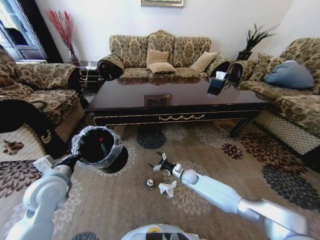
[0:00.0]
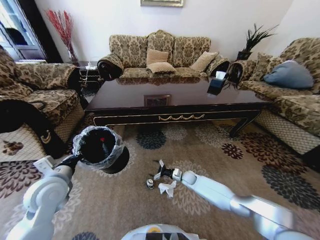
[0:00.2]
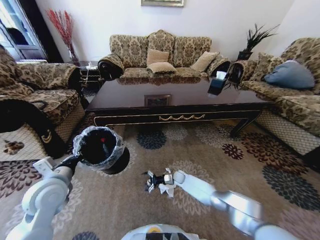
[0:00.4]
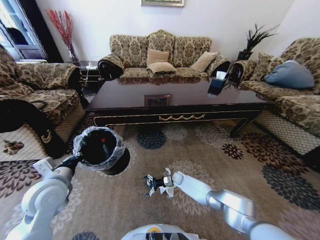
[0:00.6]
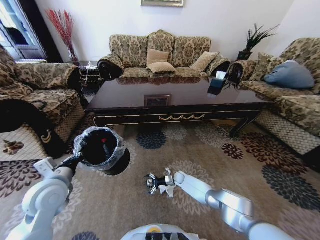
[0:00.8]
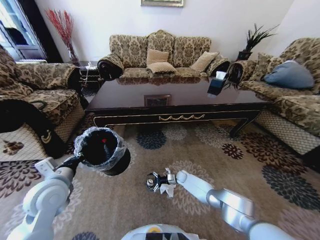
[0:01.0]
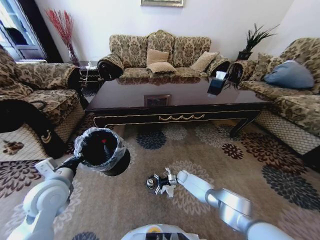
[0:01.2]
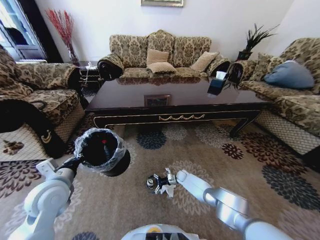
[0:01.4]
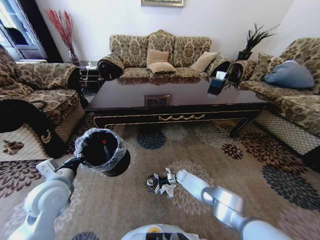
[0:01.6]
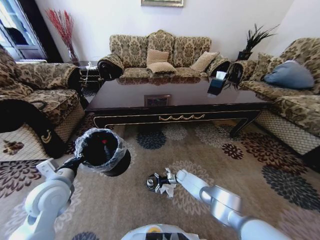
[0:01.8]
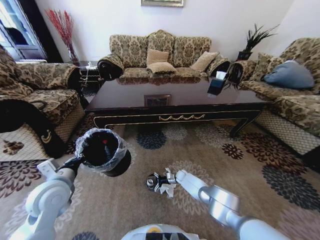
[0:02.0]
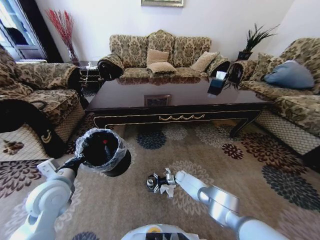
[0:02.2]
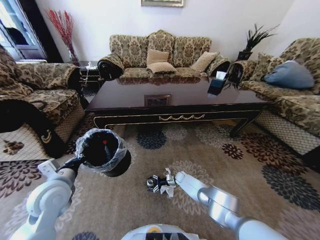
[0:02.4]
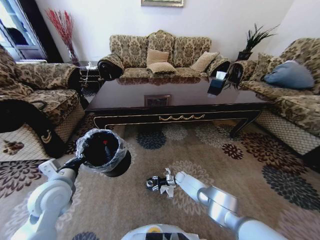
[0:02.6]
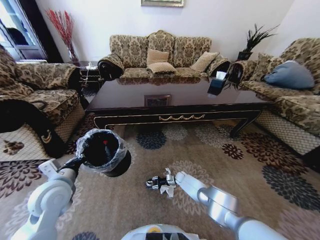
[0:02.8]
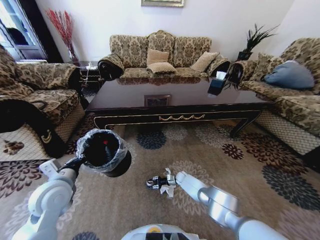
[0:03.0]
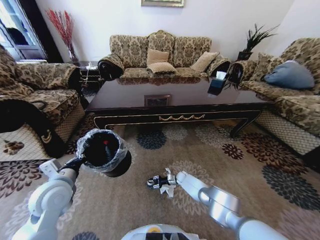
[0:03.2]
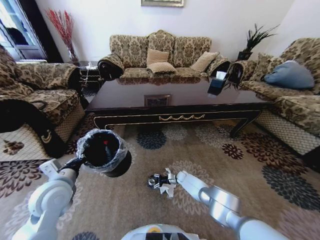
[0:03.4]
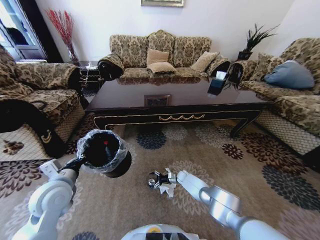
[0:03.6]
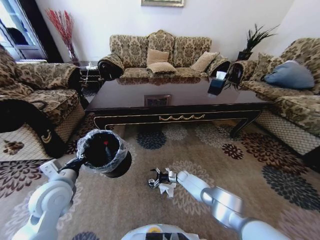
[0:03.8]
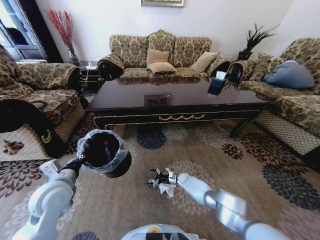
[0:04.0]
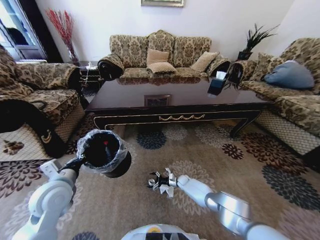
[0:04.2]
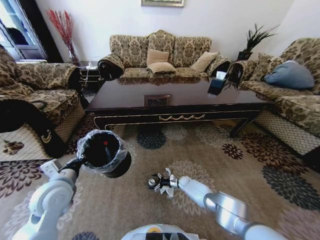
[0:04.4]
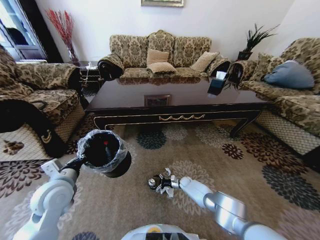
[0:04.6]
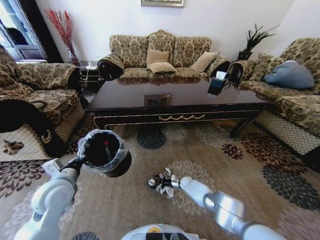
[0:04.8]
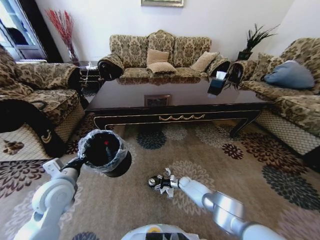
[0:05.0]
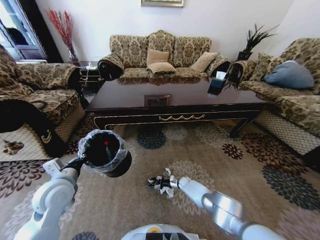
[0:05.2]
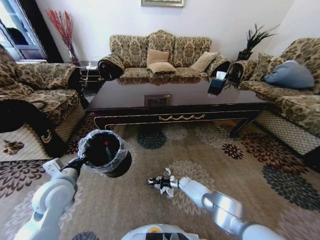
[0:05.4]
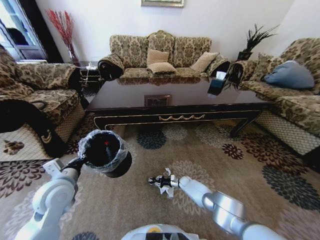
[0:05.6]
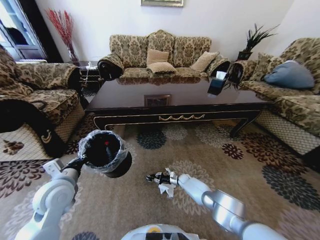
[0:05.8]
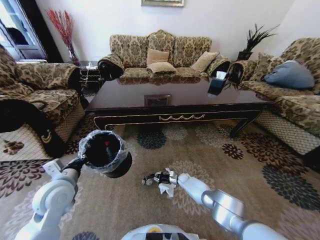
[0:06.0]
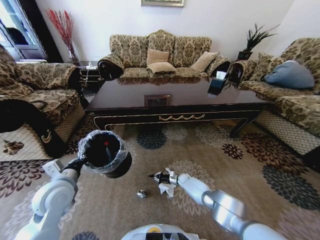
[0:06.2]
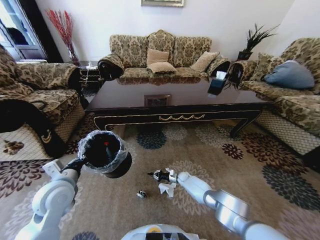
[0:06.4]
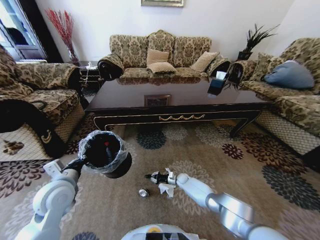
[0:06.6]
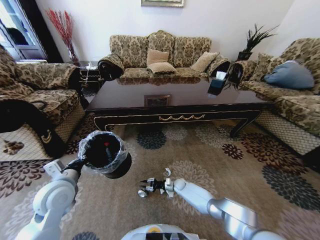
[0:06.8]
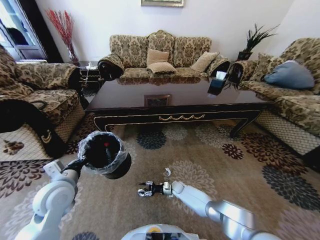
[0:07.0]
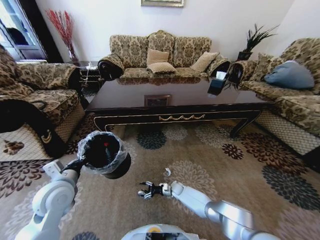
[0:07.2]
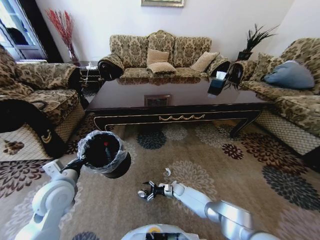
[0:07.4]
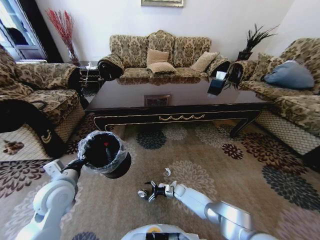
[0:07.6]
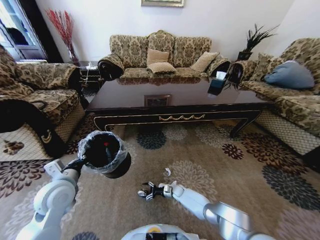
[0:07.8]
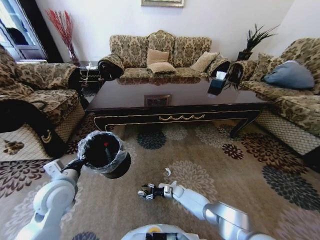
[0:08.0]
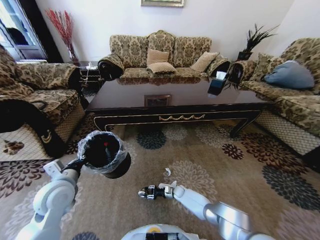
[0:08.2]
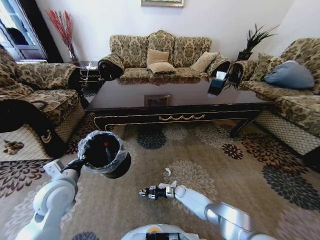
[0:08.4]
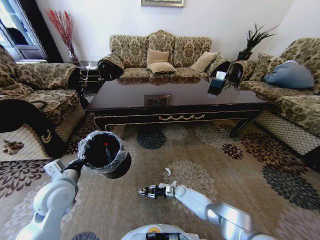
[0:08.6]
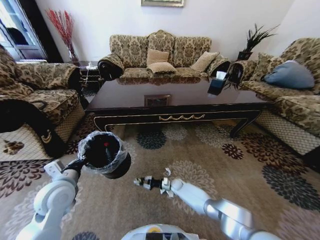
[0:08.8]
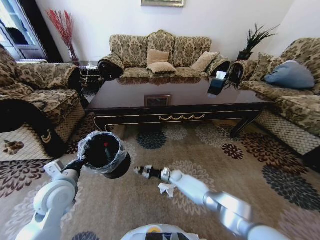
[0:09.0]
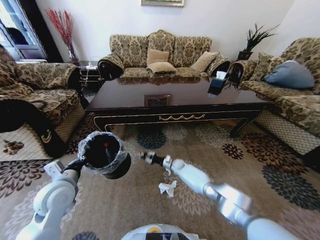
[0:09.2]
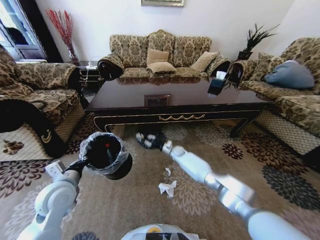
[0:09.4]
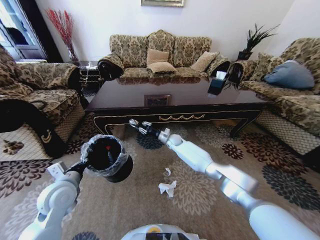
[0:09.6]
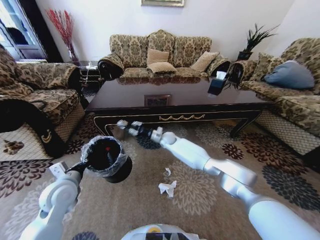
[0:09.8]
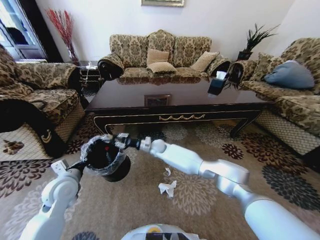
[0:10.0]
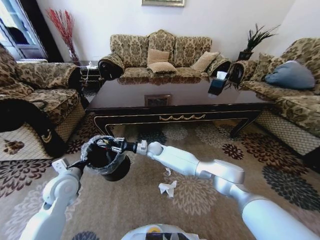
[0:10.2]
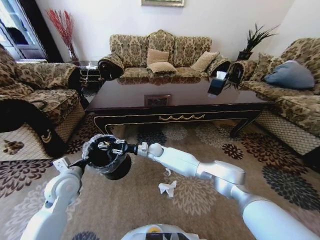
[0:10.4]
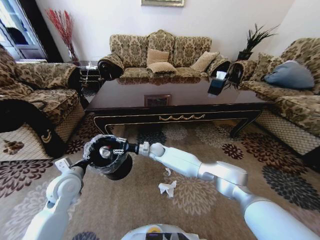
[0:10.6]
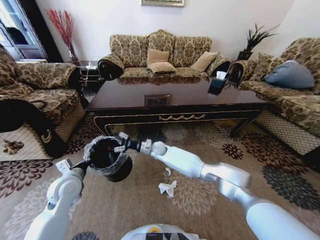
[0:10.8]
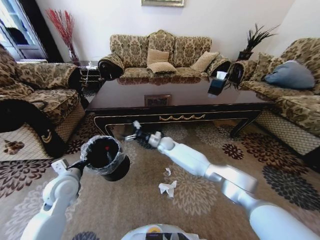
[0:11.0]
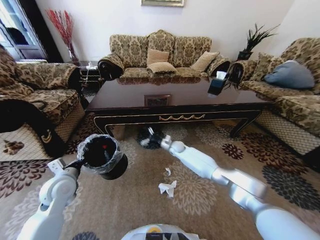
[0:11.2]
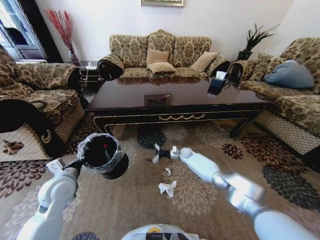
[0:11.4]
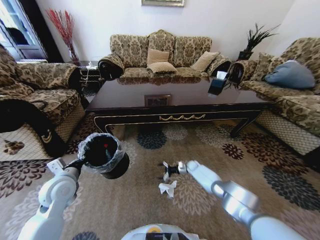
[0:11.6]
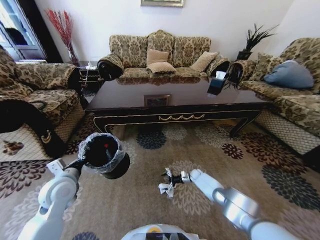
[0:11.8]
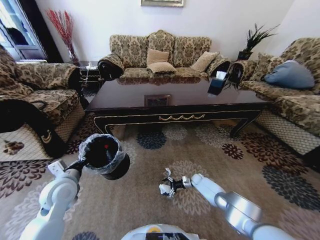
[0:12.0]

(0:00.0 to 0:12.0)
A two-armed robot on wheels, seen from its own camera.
Task of the whole recording: Move to the front of the table and pick up the trash from the floor, then place it into the trash bin.
0:00.0 - 0:01.6: The right gripper heads downward and forward, covering approximately 15 cm.
0:01.6 - 0:03.0: The right gripper closes its fingers.
0:03.0 - 0:04.4: The right gripper opens.
0:04.4 - 0:06.0: The right gripper closes its fingers.
0:06.0 - 0:07.6: The right gripper is displaced backward by roughly 5 cm, and opens its fingers.
0:07.6 - 0:09.0: The right gripper travels upward and forward by roughly 10 cm, and closes.
0:09.0 - 0:10.4: The right gripper moves upward and to the left, approximately 25 cm.
0:10.4 - 0:12.0: The right gripper is displaced to the right and downward by roughly 40 cm, and opens.

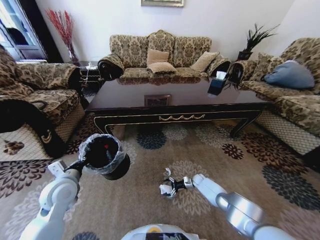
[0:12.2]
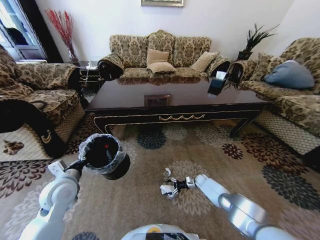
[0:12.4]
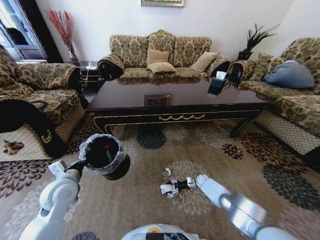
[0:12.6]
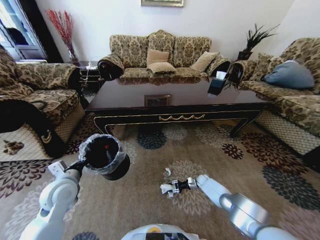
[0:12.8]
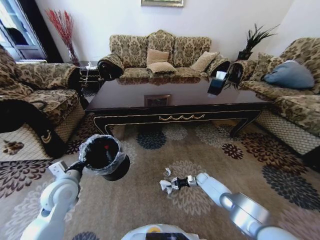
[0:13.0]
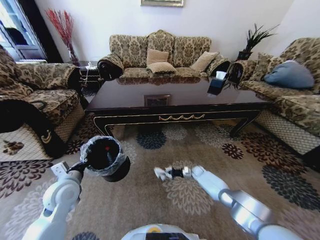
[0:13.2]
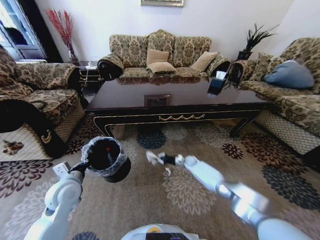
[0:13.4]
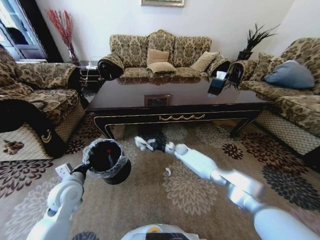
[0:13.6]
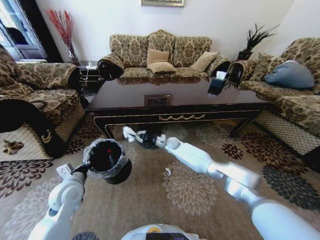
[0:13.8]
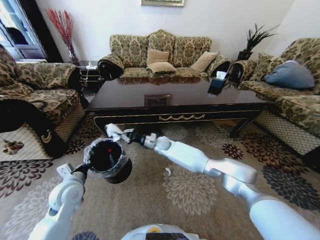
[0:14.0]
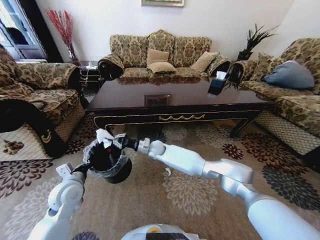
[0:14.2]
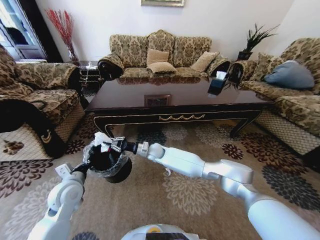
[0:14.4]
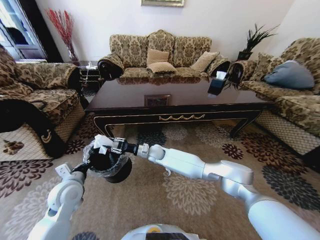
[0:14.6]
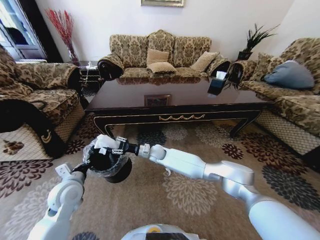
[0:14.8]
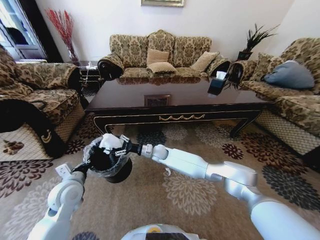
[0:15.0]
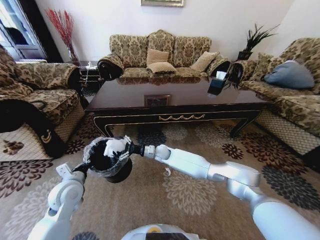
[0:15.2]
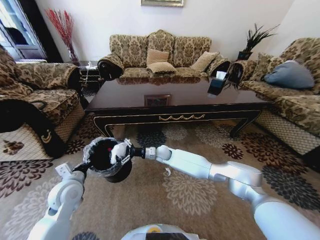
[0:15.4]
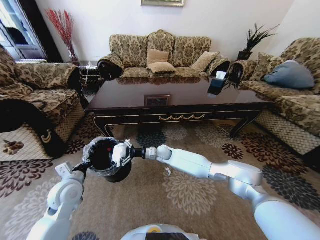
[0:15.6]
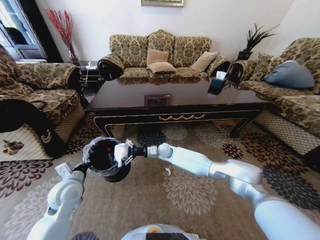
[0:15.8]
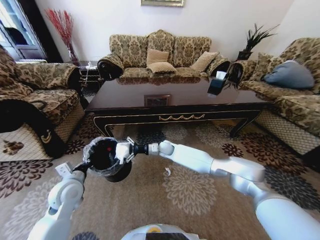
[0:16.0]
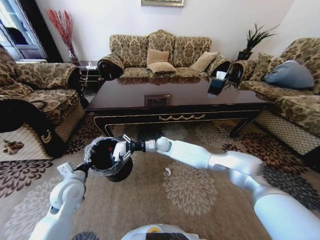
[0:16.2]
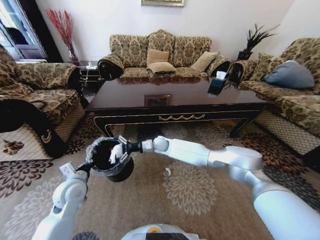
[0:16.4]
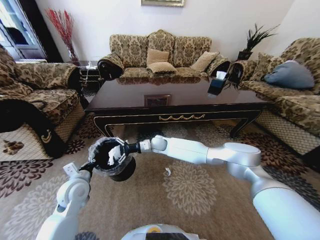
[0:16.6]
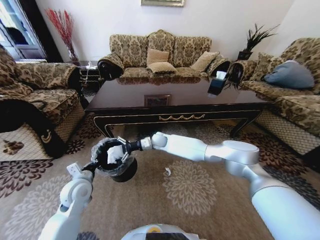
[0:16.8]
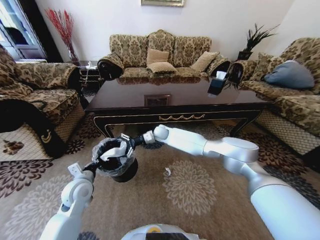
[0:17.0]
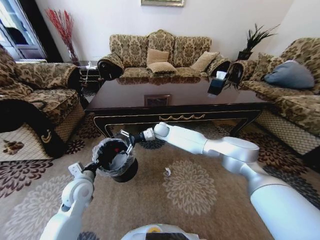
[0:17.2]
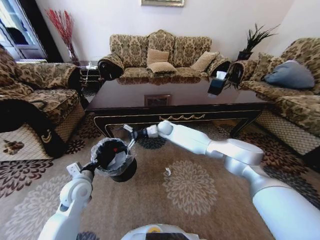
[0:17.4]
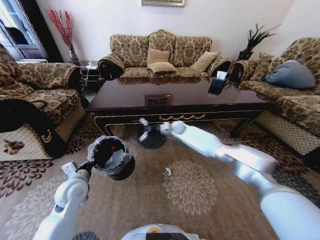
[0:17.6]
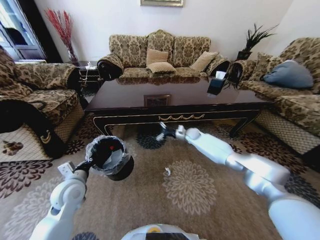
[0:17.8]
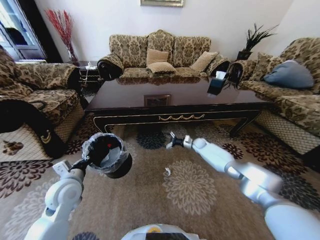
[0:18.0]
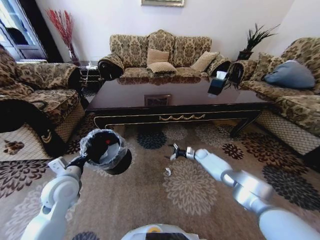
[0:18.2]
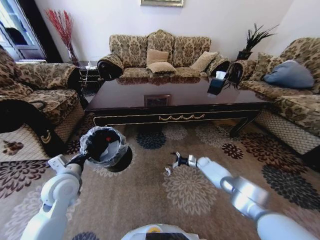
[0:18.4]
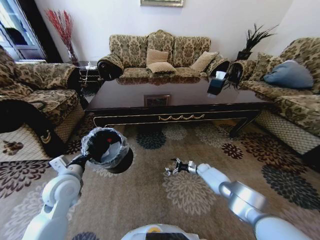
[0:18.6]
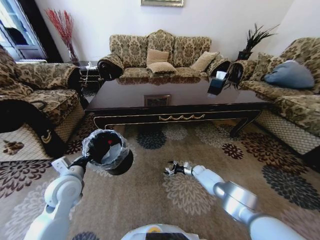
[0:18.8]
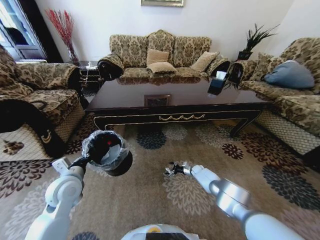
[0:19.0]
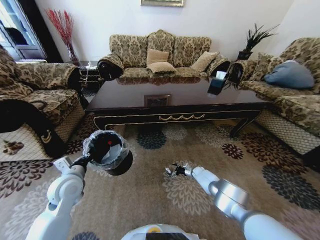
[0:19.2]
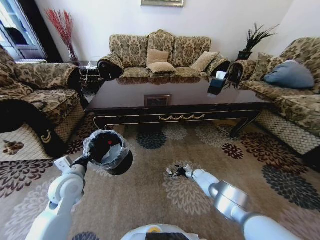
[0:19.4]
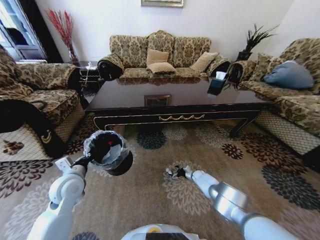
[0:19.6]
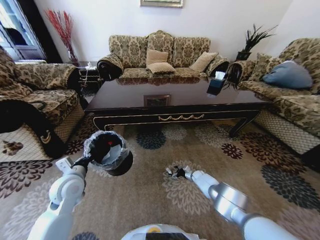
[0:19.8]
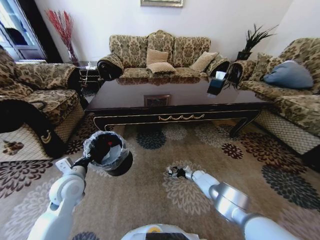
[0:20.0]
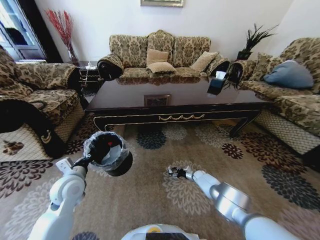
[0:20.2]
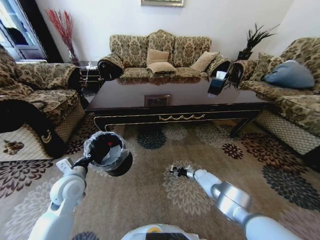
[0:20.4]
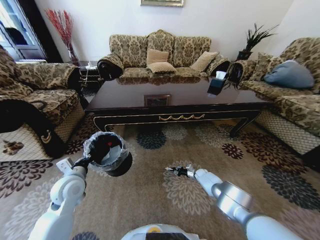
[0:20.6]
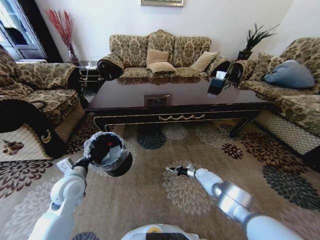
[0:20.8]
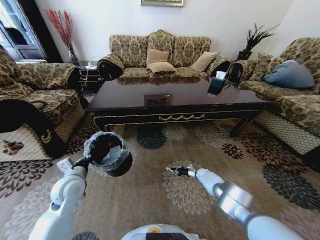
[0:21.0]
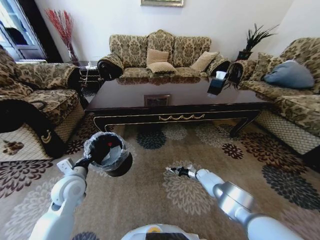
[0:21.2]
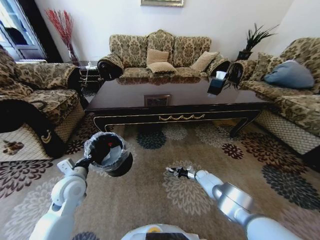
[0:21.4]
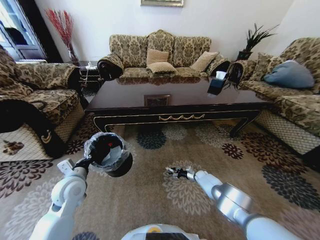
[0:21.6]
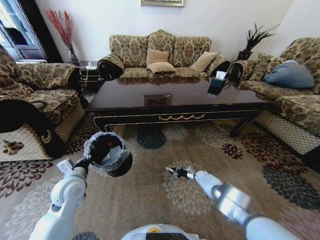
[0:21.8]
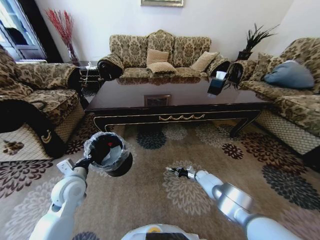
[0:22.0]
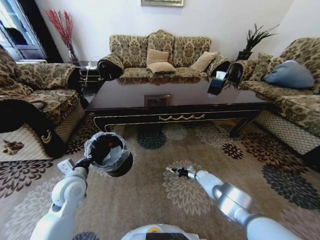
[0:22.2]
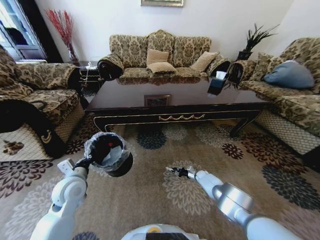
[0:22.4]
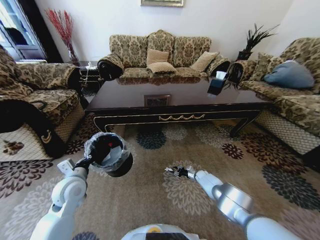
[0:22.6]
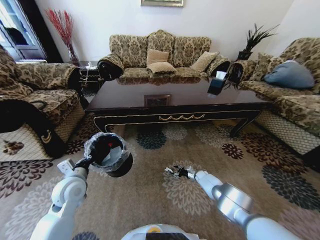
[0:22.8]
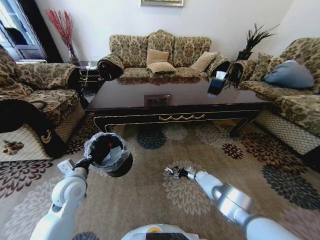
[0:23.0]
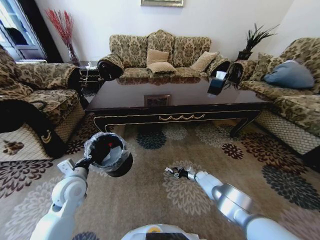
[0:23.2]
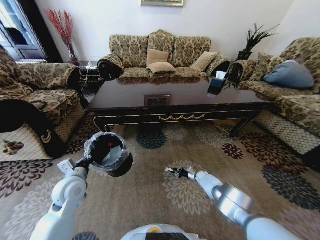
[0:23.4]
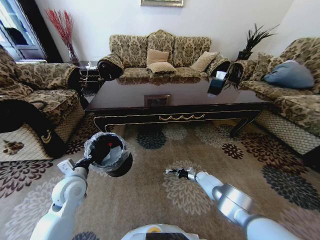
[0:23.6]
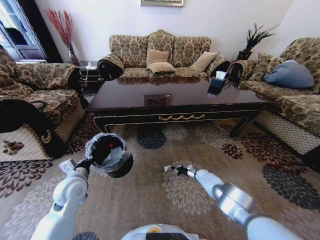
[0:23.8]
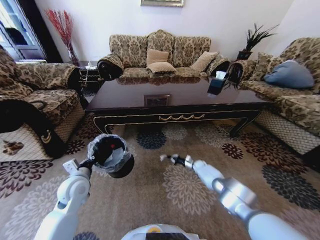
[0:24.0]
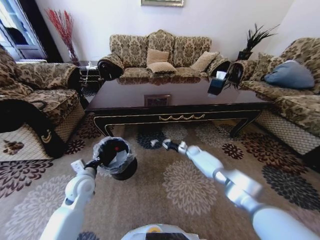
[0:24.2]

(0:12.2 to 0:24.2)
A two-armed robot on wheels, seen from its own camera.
Task of the whole recording: Move to the front of the table and pick up the trash from the floor, then place it into the trash bin.
0:12.2 - 0:13.8: The right gripper heads upward, to the left and forward, covering approximately 35 cm, and closes.
0:13.8 - 0:15.2: The right gripper travels to the left and backward by about 10 cm, and opens its fingers.
0:15.2 - 0:16.6: The right gripper shifts some 5 cm upward.
0:16.6 - 0:18.2: The right gripper goes about 35 cm to the right and downward.
0:18.2 - 0:19.8: The right gripper travels downward and backward by about 15 cm.
0:19.8 - 0:21.2: The right gripper closes.
0:21.2 - 0:22.6: The right gripper opens up.
0:22.6 - 0:24.2: The right gripper travels upward, forward and to the left by roughly 20 cm, and closes its fingers.
